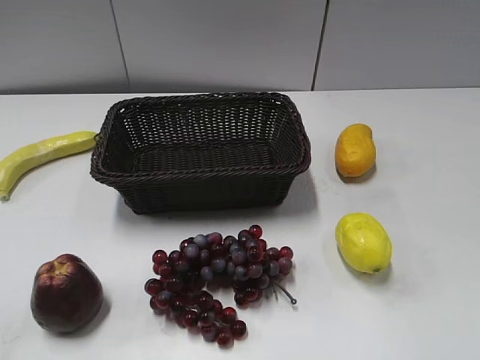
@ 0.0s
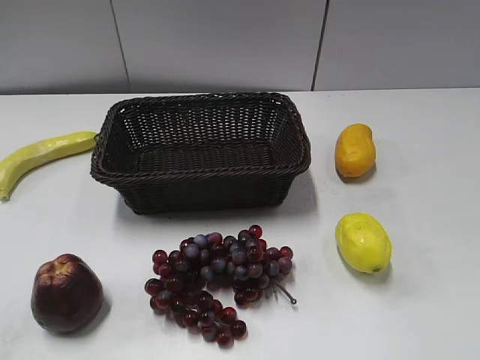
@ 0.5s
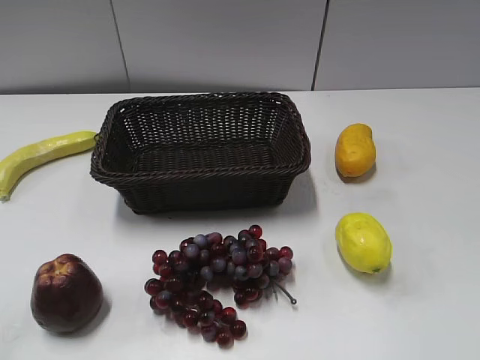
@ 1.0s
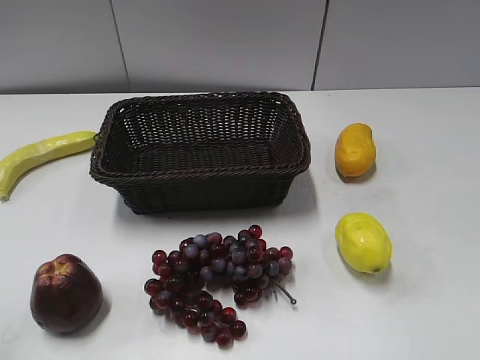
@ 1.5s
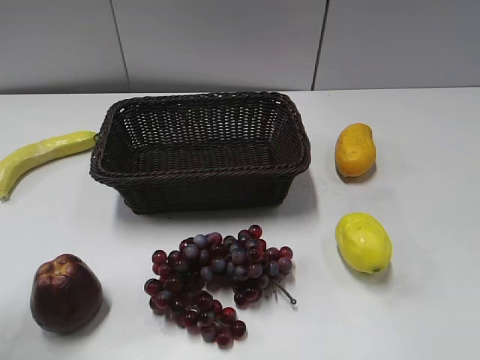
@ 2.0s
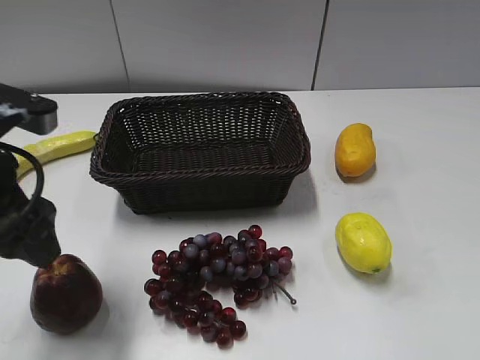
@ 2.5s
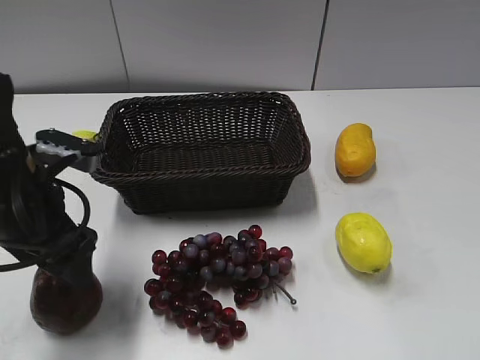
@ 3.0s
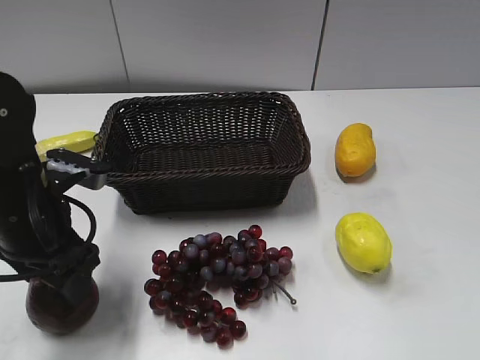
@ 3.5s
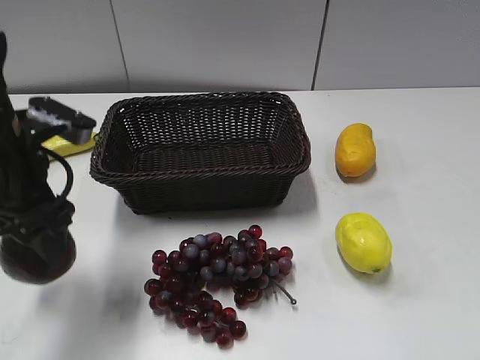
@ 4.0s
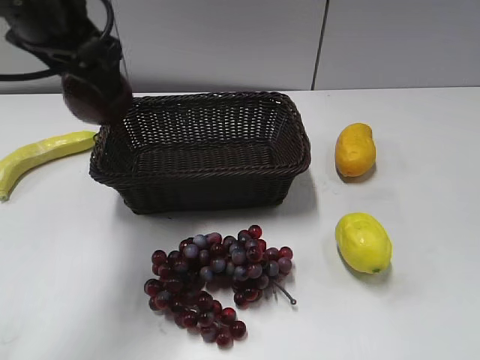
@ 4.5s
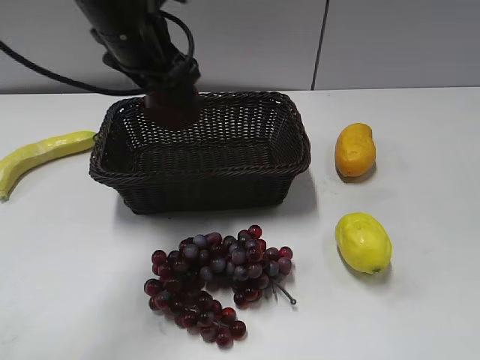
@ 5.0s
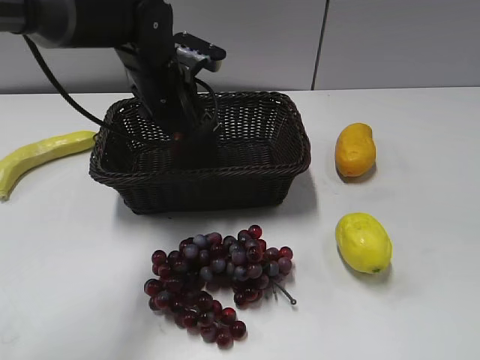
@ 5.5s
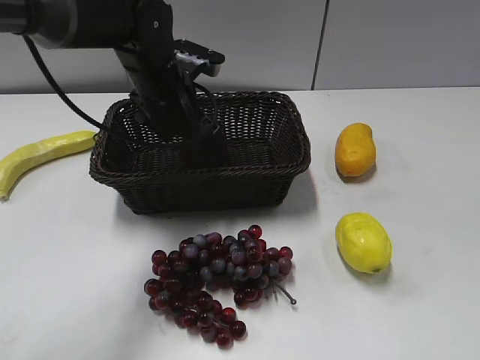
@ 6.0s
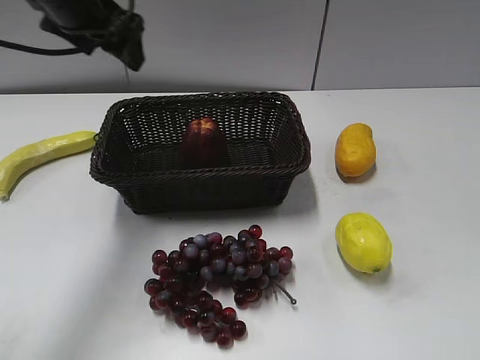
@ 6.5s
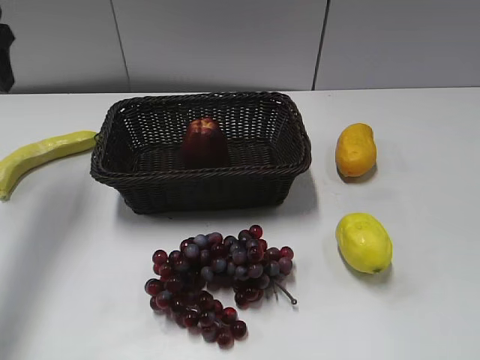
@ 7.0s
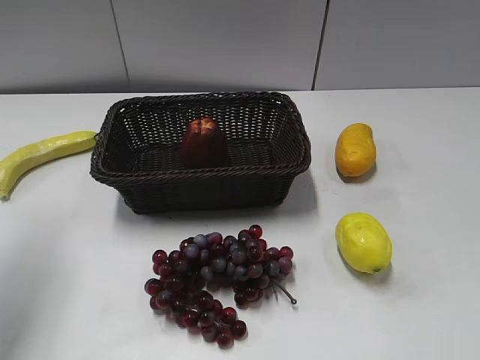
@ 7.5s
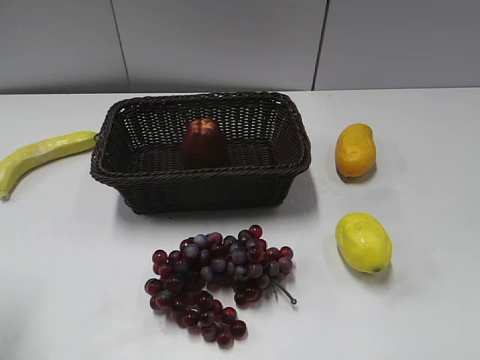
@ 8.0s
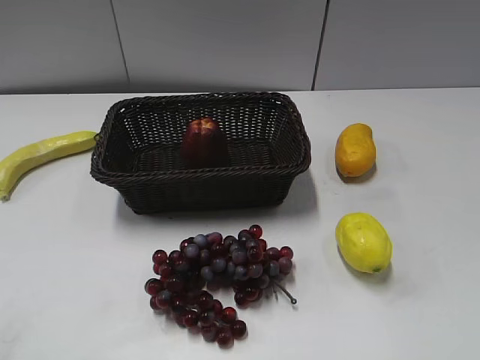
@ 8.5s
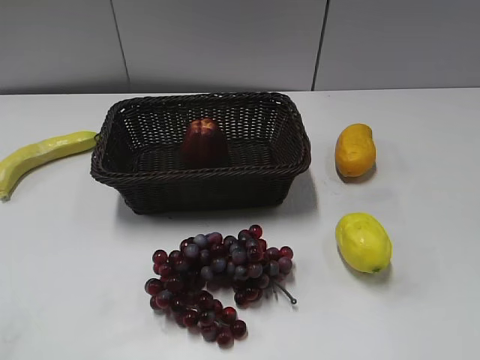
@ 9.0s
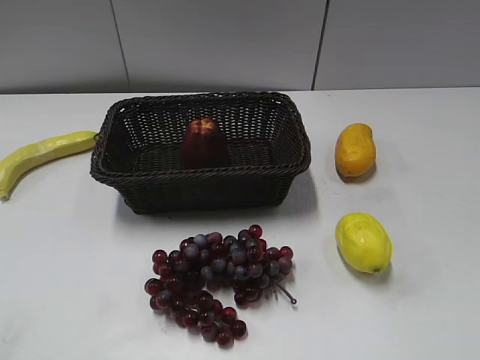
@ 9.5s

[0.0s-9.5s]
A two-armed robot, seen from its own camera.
Step, 2.5s to 3.0s: Grasp the apple with left gripper.
Step, 3.5s to 5.5s: Place the apple in the basket with left gripper.
2.0s to 4.0s: The left gripper moves forward, to the right and downward, approximately 15 cm, and opens, then closes again.
4.0s to 5.5s: The left gripper heads forward and to the right, covering about 20 cm.
5.5s to 7.5s: The left gripper travels to the left, backward and upward by approximately 30 cm, and opens, then closes again.
7.5s to 9.5s: The left gripper heads backward, covering approximately 25 cm.

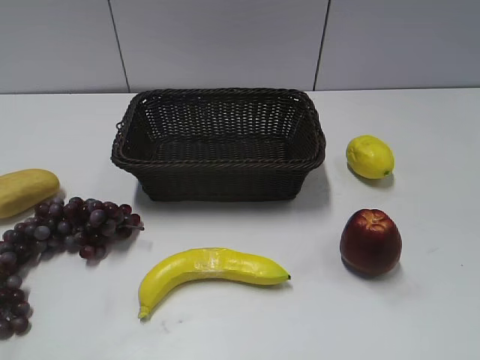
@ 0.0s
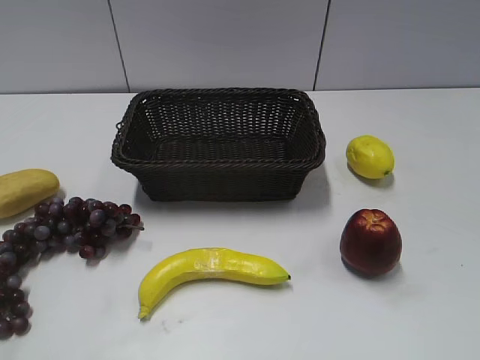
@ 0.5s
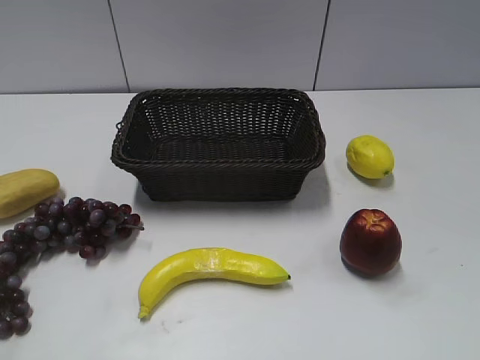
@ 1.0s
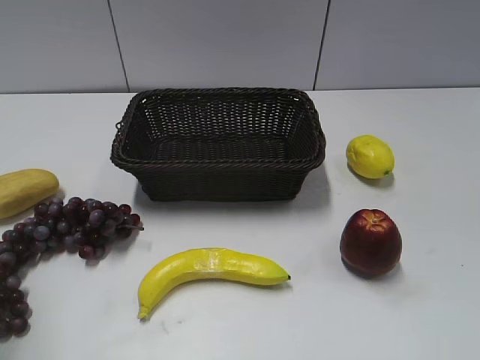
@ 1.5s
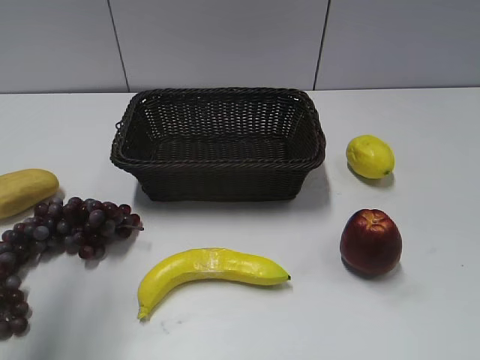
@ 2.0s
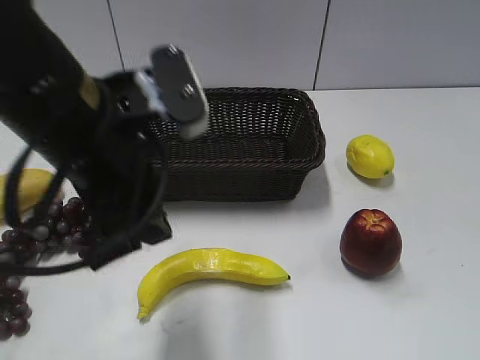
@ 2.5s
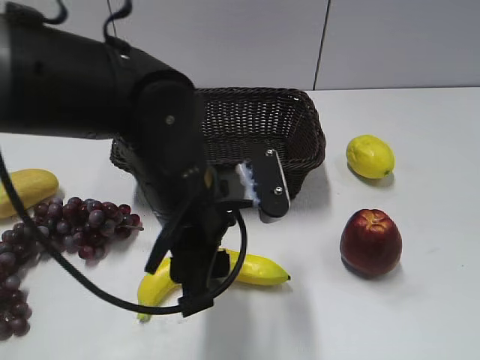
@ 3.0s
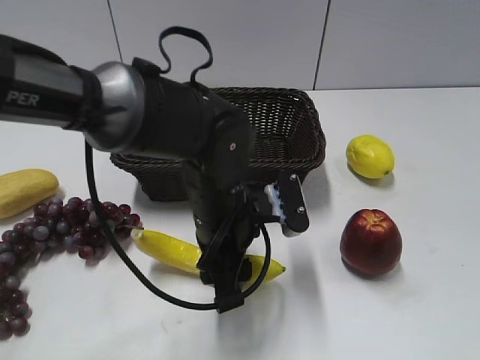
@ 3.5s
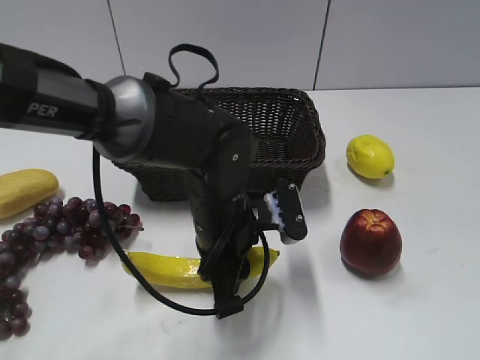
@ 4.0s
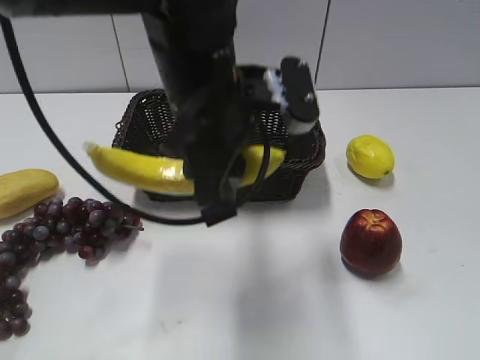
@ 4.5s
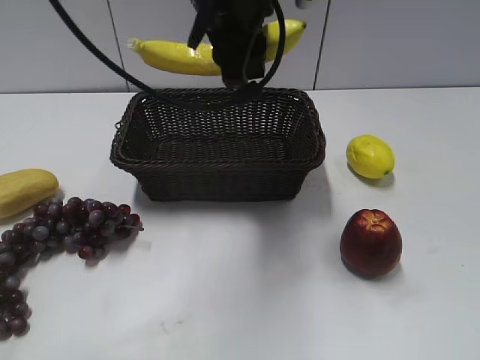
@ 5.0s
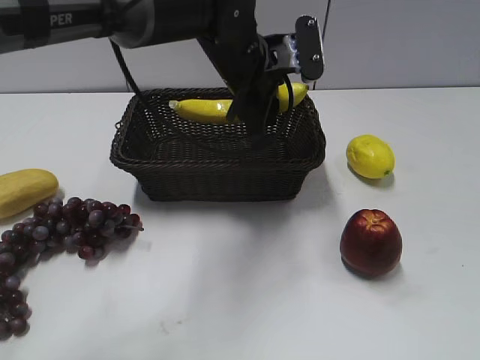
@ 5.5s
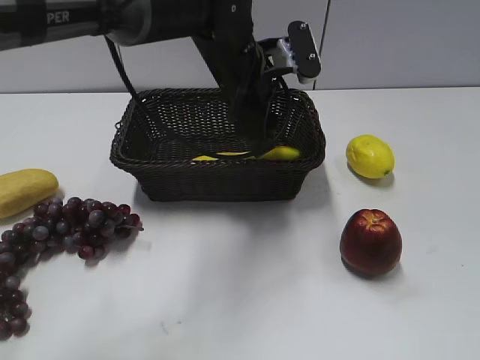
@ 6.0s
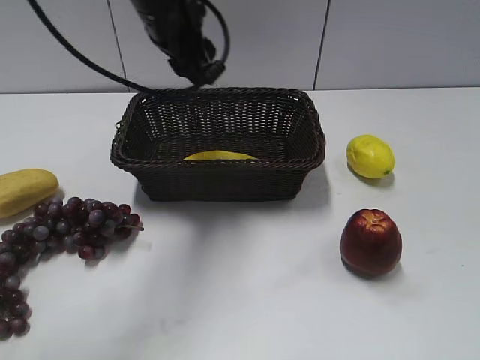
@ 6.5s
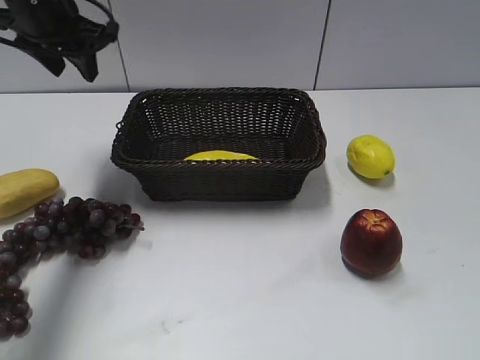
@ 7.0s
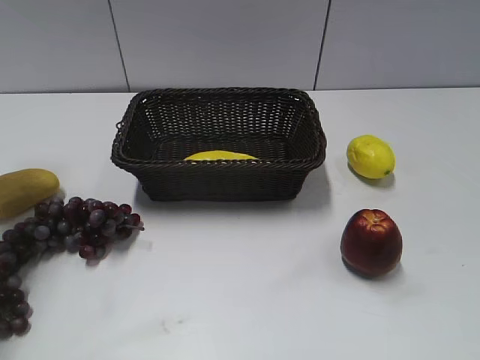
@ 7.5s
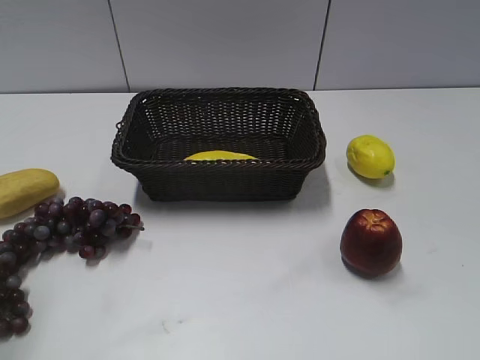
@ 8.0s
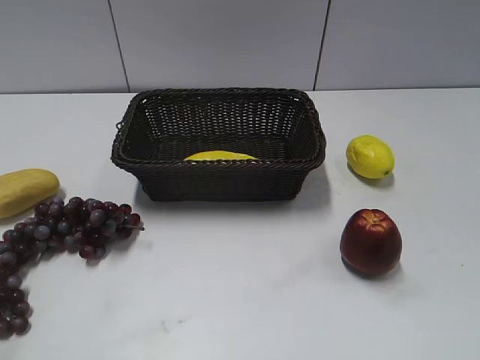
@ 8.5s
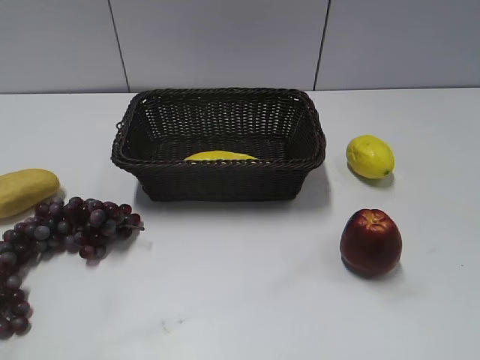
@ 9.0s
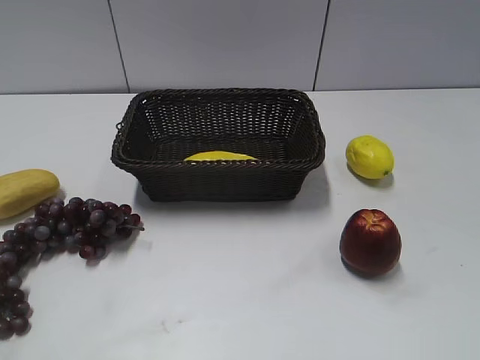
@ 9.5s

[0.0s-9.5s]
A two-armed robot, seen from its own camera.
Step, 2.5s to 3.5s: Grasp the banana with left gripper.
Step, 4.0s to 6.0s: Place the banana in the basket with left gripper.
2.0s to 4.0s: The left gripper heads downward and to the right, covering approximately 35 cm, and closes its fingers.
4.0s to 5.5s: The left gripper heads forward and upward, covering about 15 cm.
5.5s to 7.5s: The left gripper is displaced to the left by approximately 35 cm, and opens up.
7.5s to 9.5s: The left gripper heads backward, covering about 35 cm.
